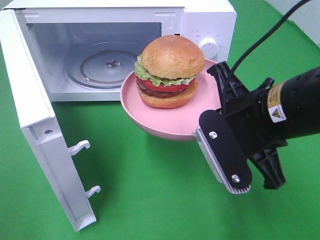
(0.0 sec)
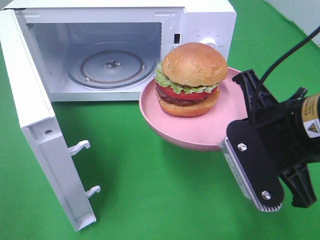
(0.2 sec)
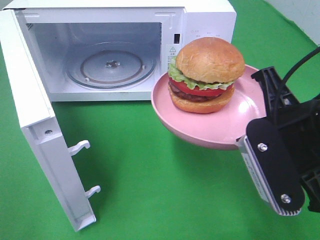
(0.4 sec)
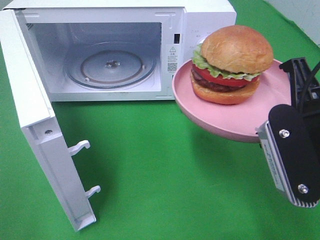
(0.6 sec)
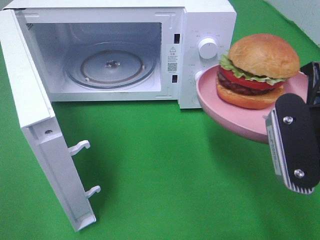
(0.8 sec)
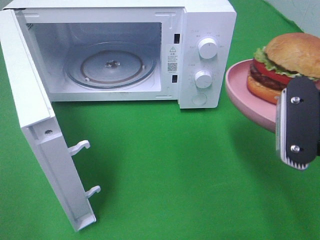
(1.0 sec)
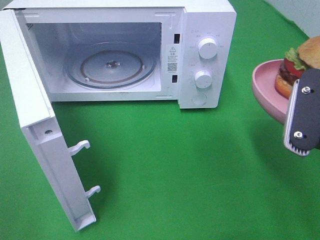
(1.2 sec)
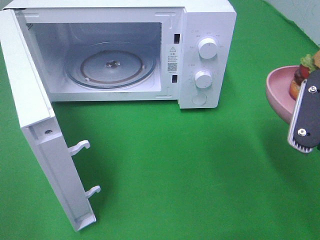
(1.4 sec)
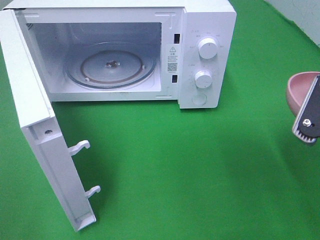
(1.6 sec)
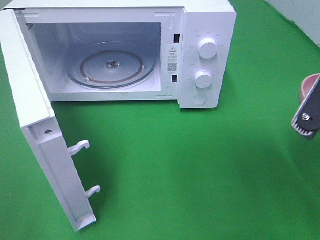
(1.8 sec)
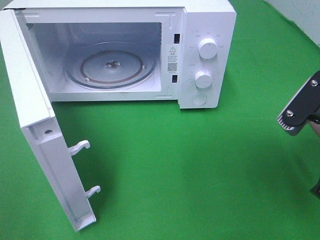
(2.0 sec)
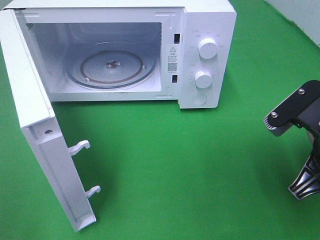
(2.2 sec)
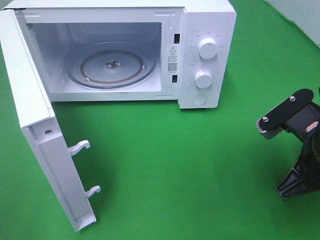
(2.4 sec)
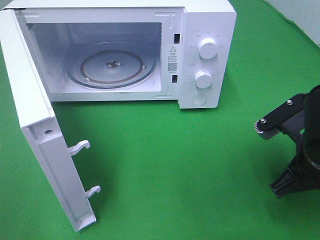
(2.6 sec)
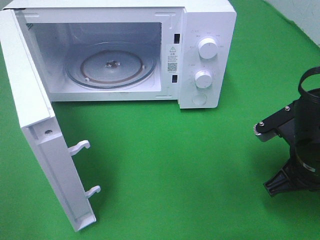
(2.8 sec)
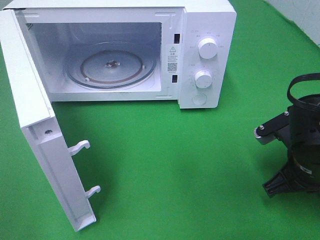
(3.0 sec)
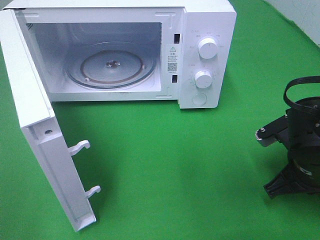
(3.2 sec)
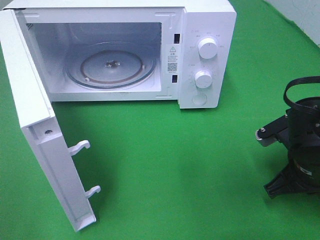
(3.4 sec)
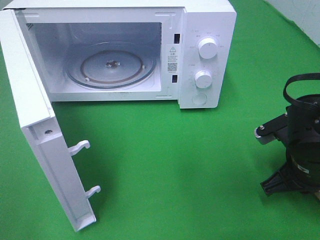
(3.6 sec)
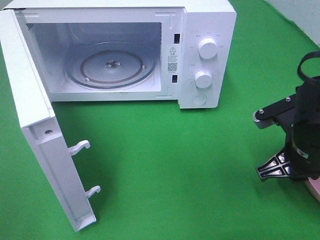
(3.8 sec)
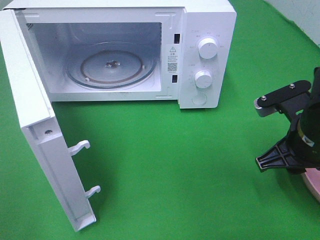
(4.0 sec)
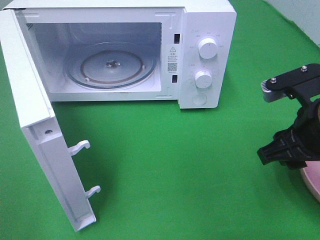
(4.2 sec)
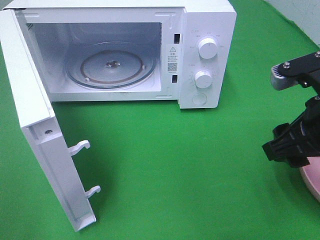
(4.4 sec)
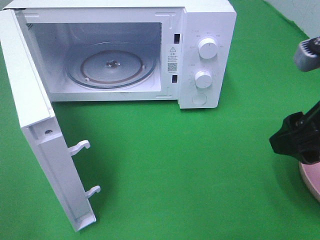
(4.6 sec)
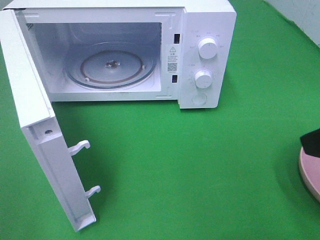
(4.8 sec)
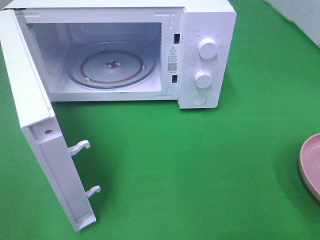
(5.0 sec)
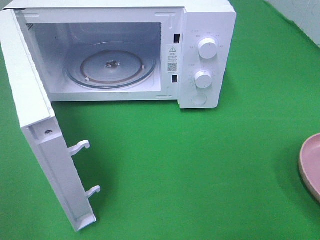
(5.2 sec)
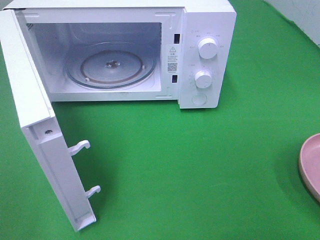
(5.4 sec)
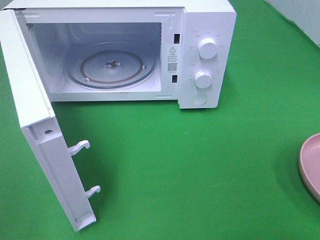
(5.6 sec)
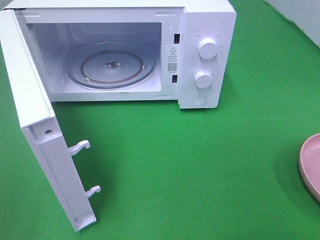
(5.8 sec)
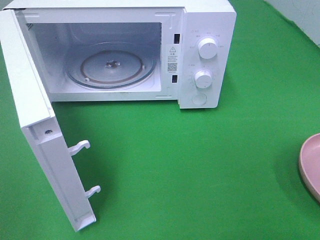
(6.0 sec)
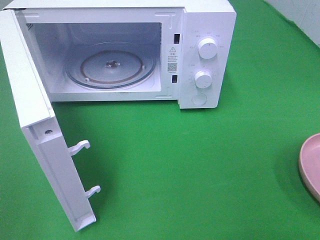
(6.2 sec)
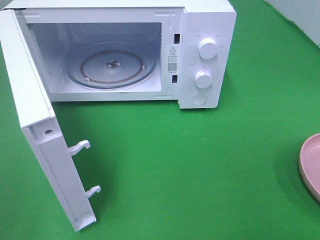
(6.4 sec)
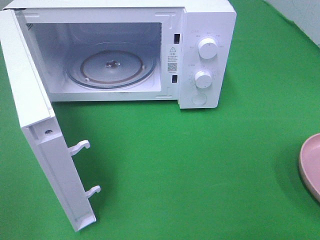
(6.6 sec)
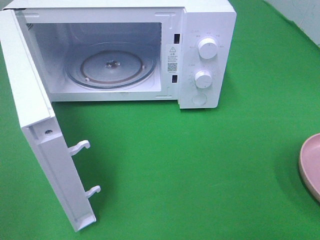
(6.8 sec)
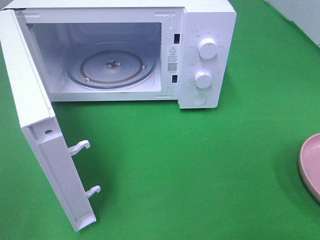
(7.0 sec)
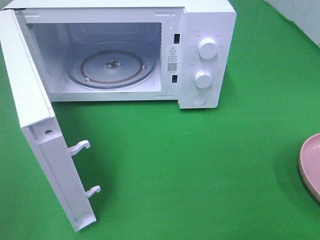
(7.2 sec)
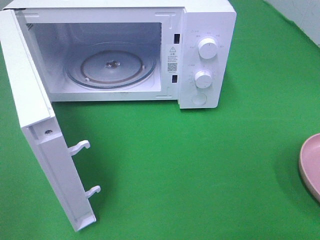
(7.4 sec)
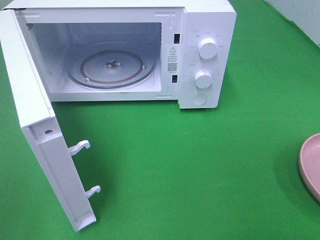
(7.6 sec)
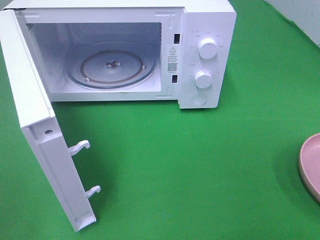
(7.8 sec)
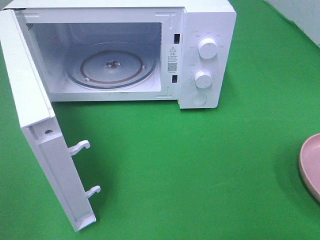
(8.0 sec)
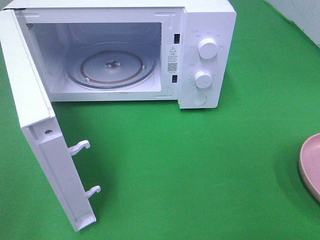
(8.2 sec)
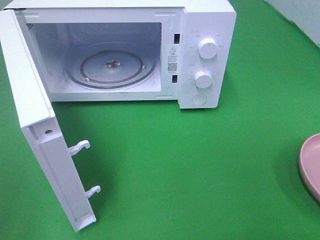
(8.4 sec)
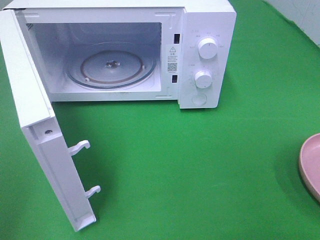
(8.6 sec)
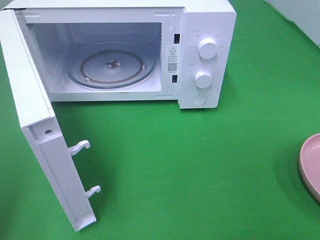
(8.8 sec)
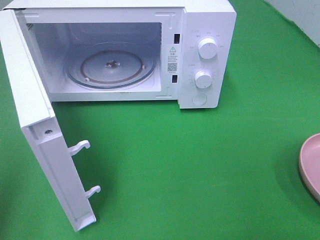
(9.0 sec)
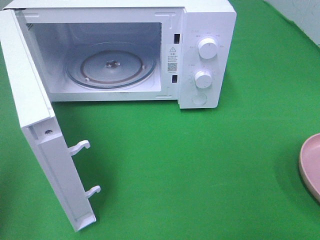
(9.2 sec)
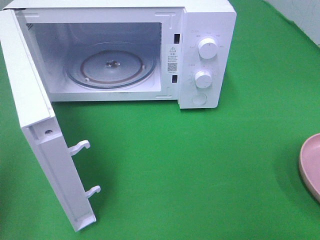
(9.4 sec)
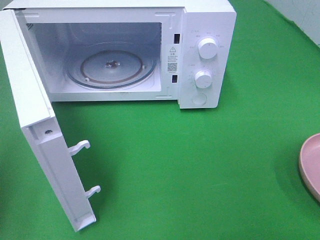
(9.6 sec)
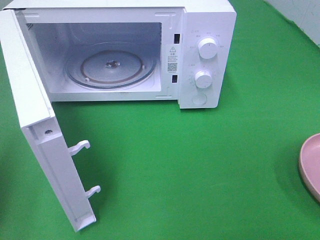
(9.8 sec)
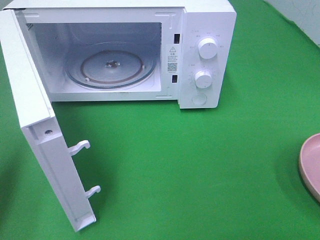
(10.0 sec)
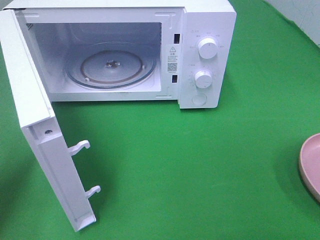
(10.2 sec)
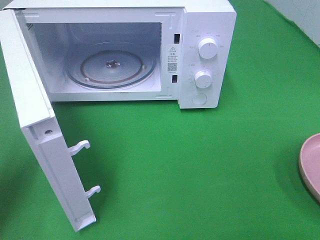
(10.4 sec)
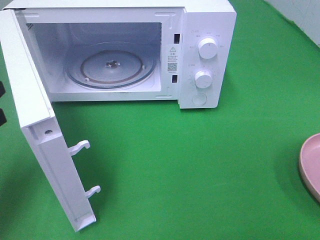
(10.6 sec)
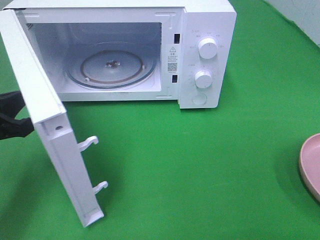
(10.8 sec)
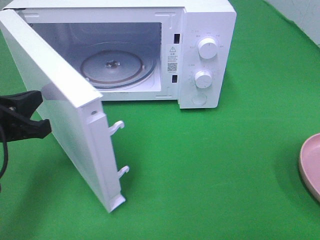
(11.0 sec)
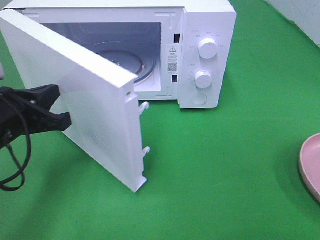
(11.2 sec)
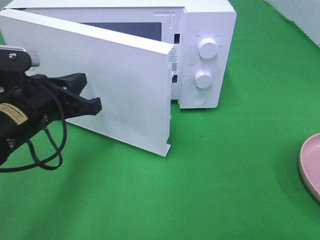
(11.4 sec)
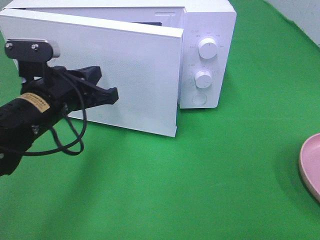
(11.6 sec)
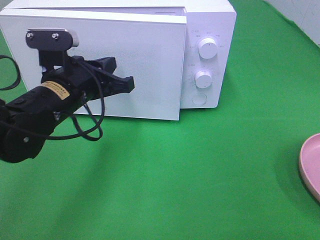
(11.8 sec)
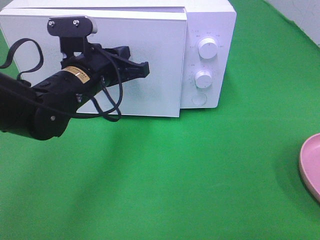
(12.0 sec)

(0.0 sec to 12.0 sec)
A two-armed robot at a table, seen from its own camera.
Task of the whole recording: Heat the burger.
Step, 0.0 sec - 4.4 sec: Right hand: place the plate in the microwave.
0.0 sec - 1.6 sec: The right gripper moves to the right, some 10 cm.
1.6 sec - 3.0 sec: The right gripper travels downward and forward by roughly 15 cm.
3.0 sec - 4.4 sec: The right gripper moves upward, roughly 10 cm, and opens its fingers.
4.4 sec - 6.0 sec: The right gripper heads backward and to the right, covering roughly 20 cm.
9.0 sec - 10.4 sec: The left gripper goes some 15 cm forward and downward.
10.4 sec - 12.0 sec: The left gripper is displaced to the right and forward by about 25 cm.

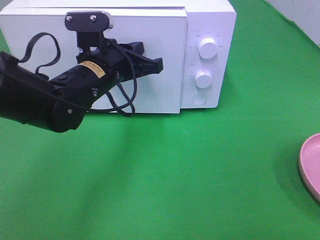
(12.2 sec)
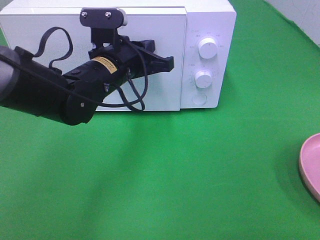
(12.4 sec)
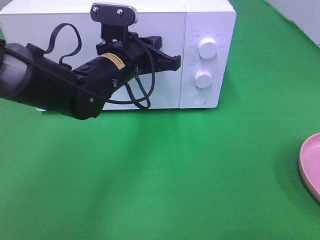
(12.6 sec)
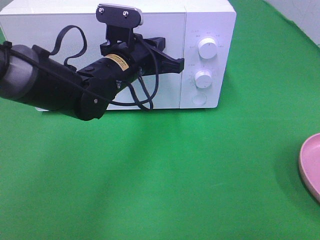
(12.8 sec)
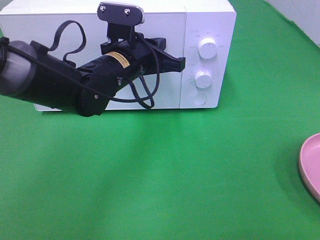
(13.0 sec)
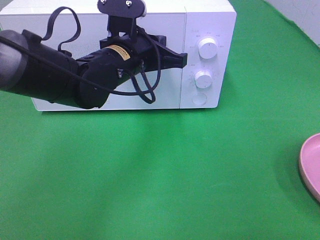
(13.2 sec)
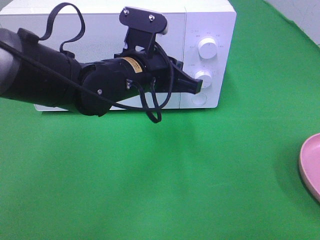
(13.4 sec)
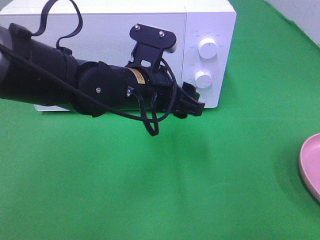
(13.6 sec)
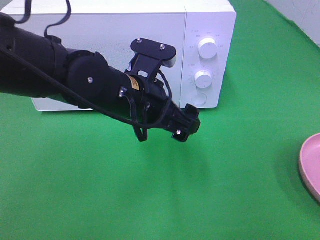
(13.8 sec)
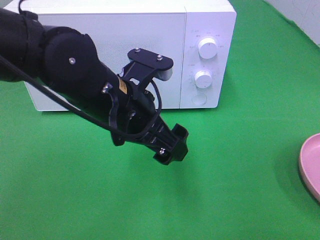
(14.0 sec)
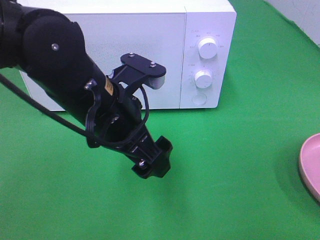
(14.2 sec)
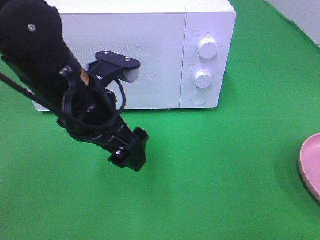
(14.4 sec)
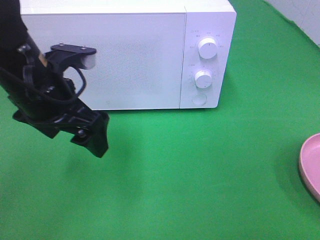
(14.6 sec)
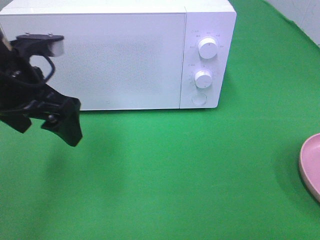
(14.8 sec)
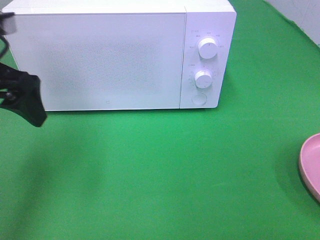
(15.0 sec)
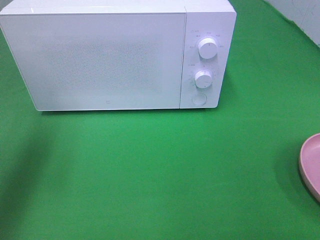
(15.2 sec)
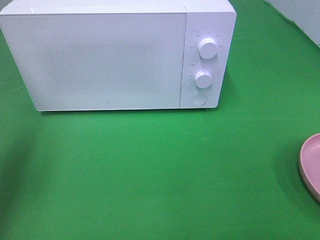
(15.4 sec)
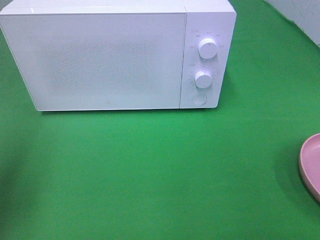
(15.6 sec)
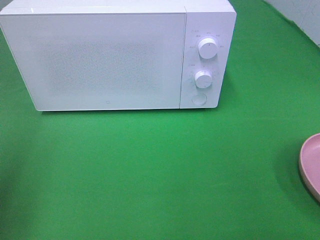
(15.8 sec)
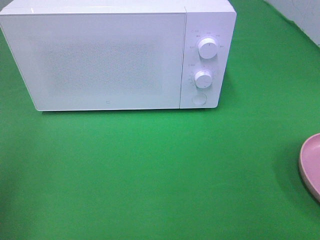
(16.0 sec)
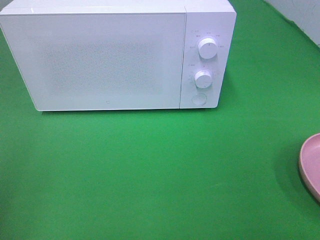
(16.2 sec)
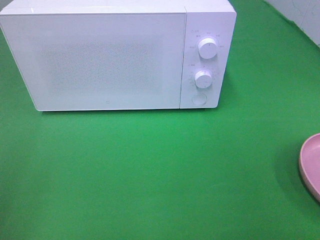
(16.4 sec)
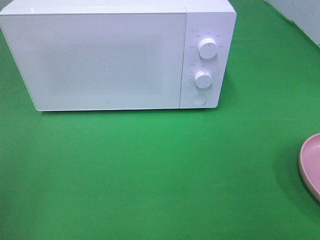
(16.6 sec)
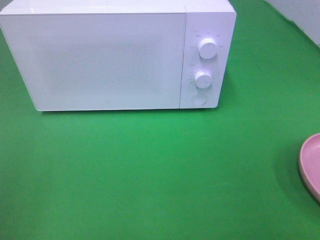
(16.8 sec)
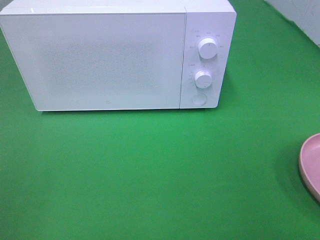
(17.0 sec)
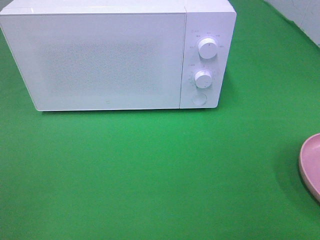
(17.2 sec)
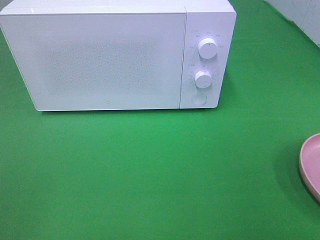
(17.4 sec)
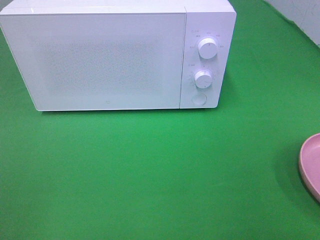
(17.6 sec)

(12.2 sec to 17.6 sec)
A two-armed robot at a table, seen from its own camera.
Task of the whole recording: Heat the burger.
12.2 sec - 13.6 sec: The left gripper heads to the right, covering roughly 5 cm, and opens.
13.6 sec - 15.0 sec: The left gripper goes some 20 cm to the left and upward.
15.0 sec - 16.2 sec: The left gripper is displaced backward and to the left by approximately 20 cm.
